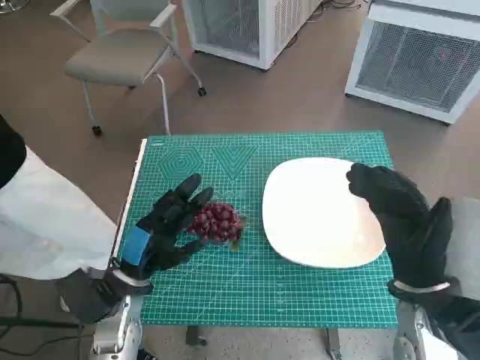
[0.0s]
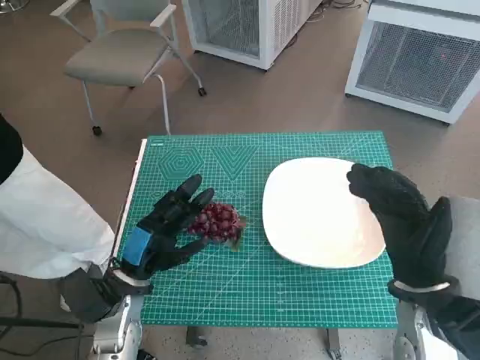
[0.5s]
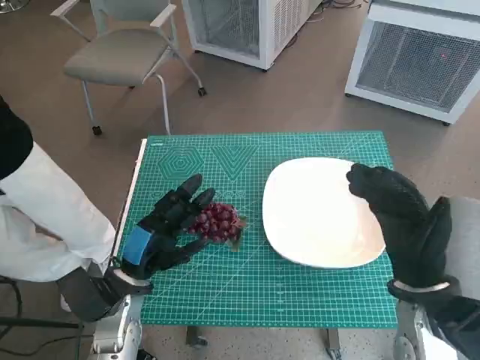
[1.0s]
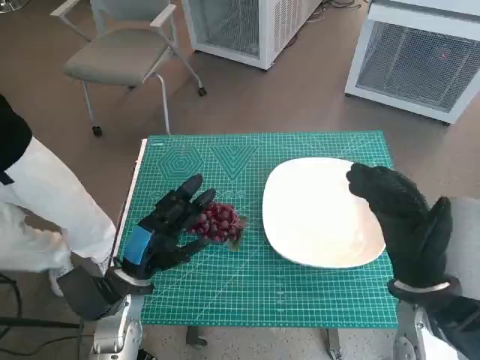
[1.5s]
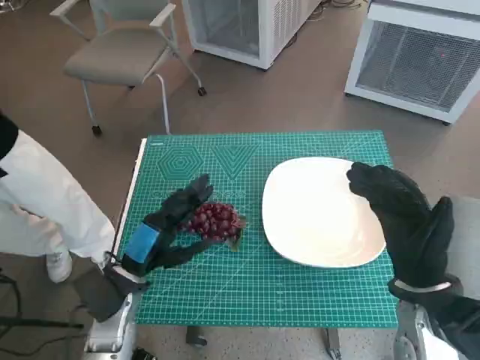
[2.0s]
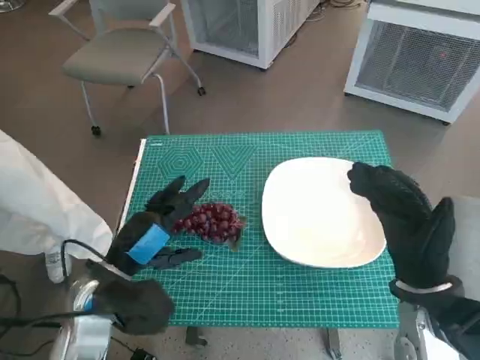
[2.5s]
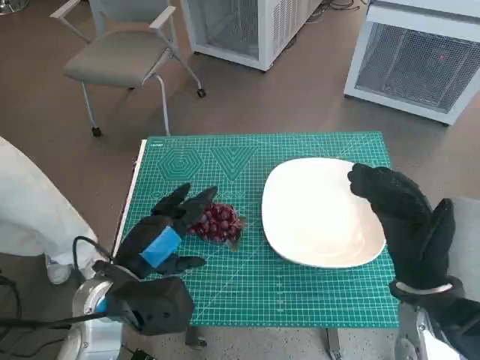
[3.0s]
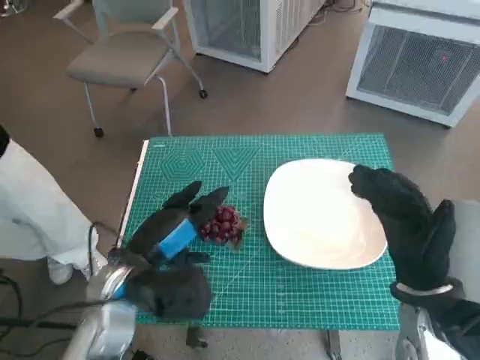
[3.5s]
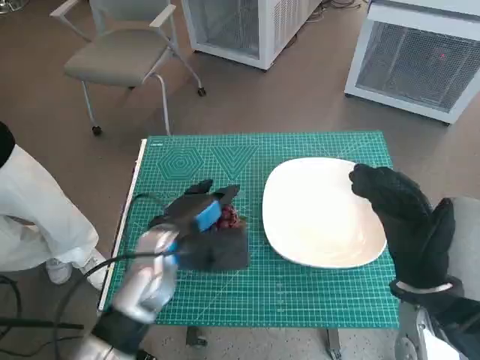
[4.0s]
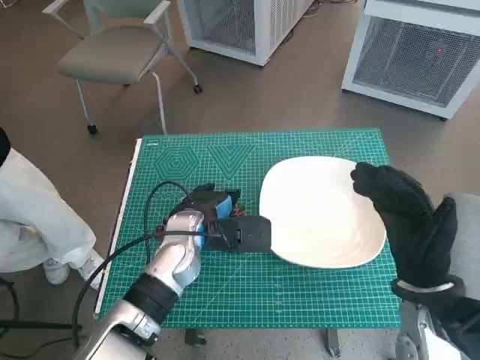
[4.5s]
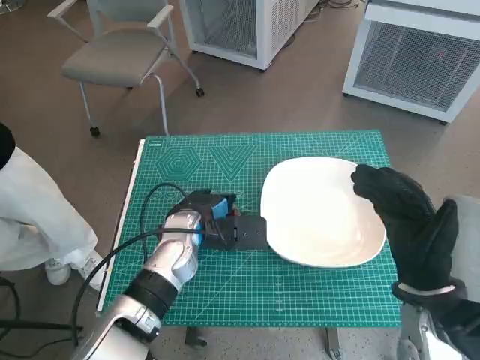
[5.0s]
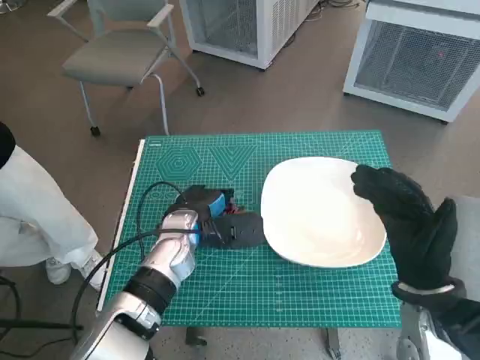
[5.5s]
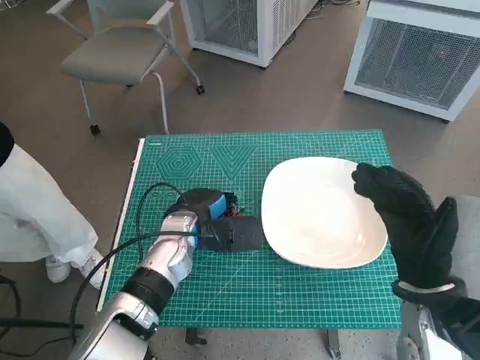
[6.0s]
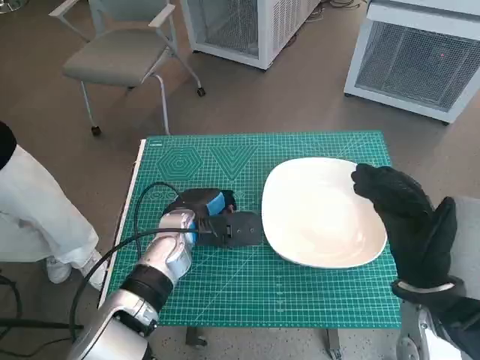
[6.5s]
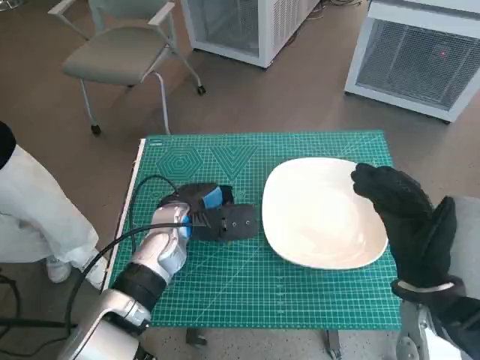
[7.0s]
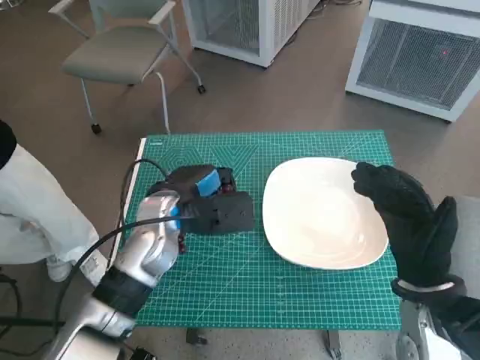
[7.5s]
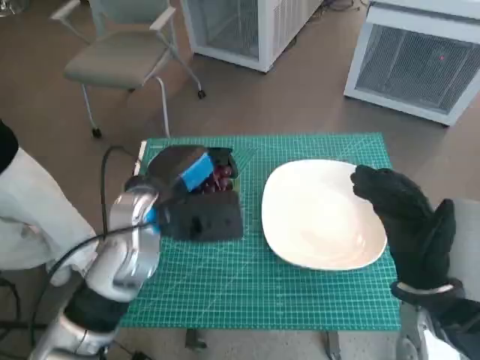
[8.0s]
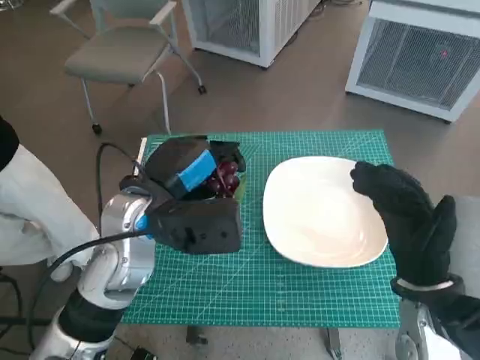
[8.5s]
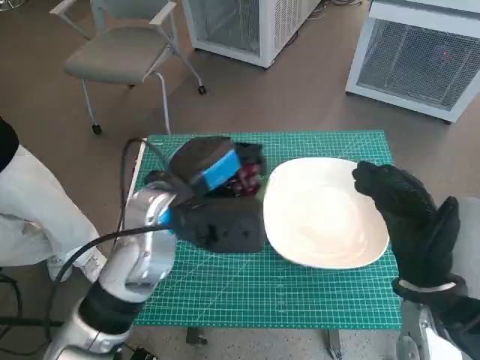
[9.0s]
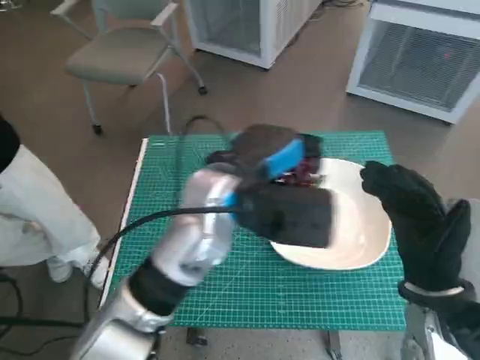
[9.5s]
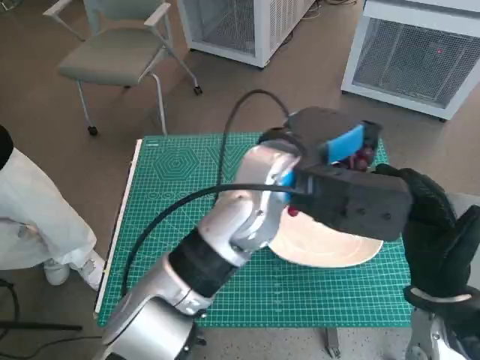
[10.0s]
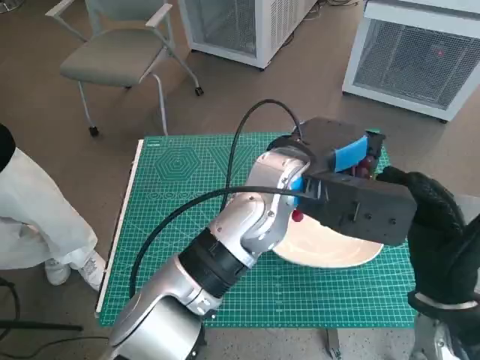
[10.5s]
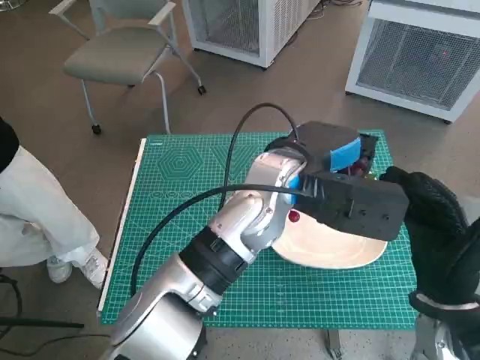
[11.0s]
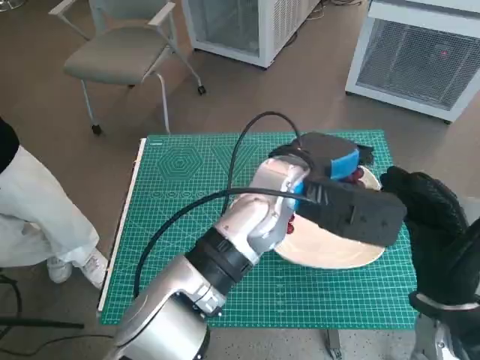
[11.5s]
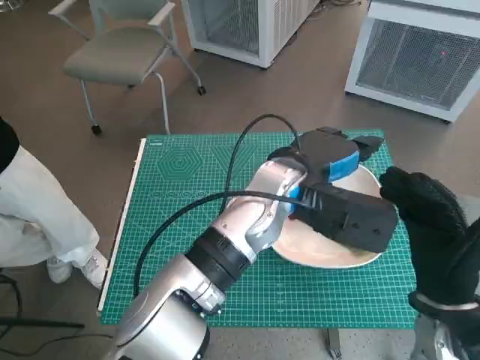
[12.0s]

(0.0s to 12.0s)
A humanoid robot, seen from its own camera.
Task of the whole recording: Pick up the grapes and put them on the plate.
Step, 0.0s - 6.0s: Grasp the grapes with left hand.
Step, 6.5s - 11.5s: Place the grapes in the plate with left hand.
2.0s - 4.0s: The left hand heads to the right and forward, covering approximately 10 cm.
4.0s - 6.0s: The left hand shifts by about 5 cm.
6.0s - 8.0s: The left hand heads upward, covering some 10 cm.
8.0s - 10.0s: The left hand travels to the right by some 15 cm.

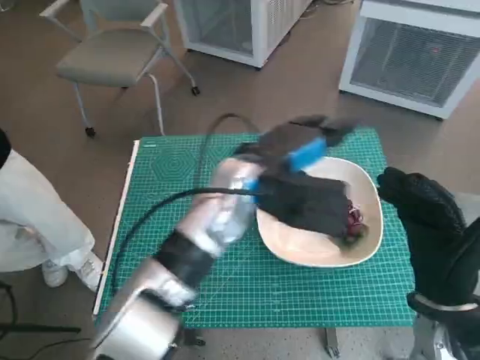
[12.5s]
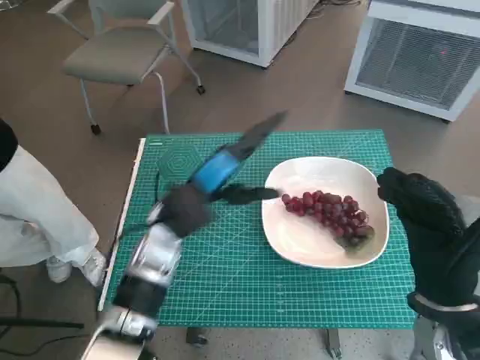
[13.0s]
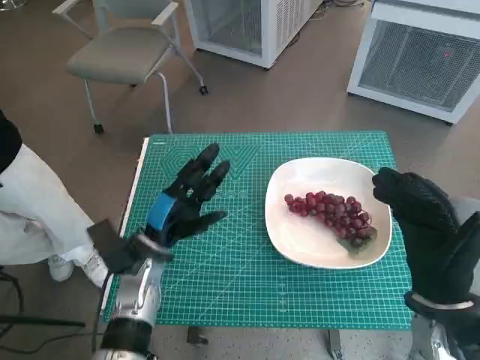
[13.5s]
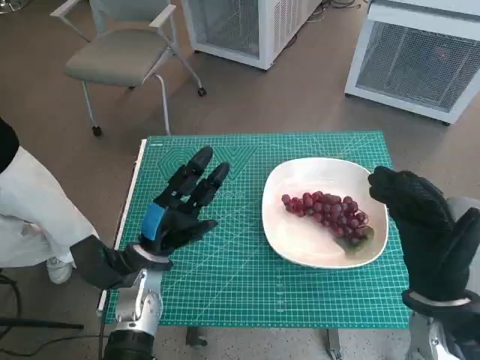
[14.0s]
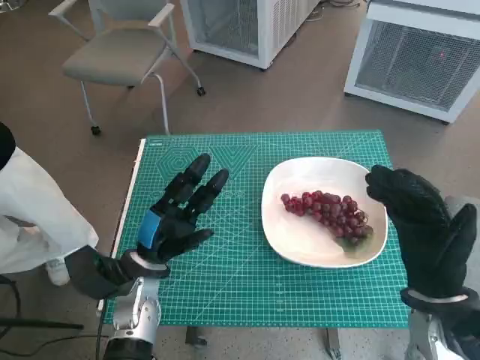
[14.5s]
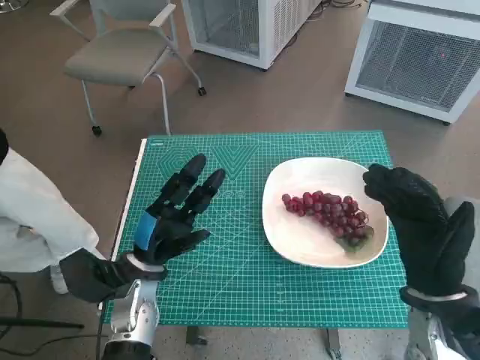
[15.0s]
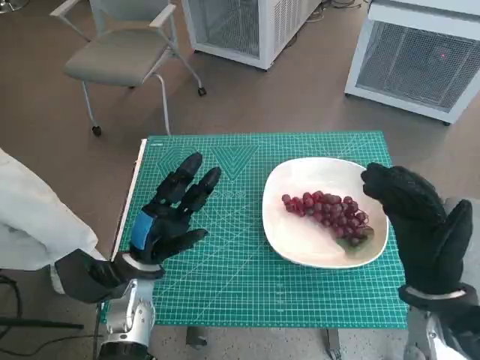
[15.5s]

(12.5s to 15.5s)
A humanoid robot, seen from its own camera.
Task of the whole recording: Pick up the grapes and put them on the plate.
12.5s - 14.0s: The left hand travels to the left and downward by about 20 cm.
14.0s - 15.5s: There are only small adjustments of the hands.
